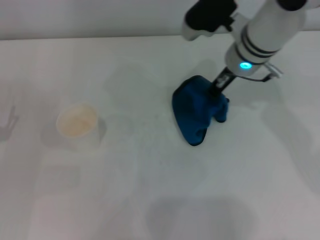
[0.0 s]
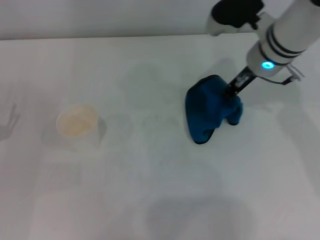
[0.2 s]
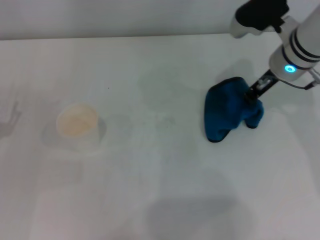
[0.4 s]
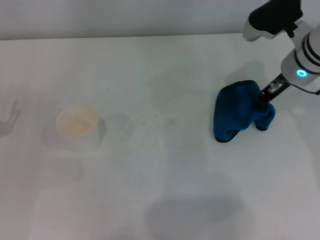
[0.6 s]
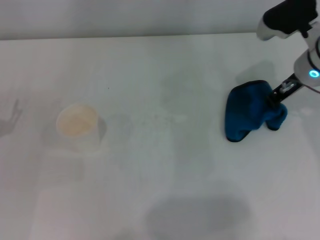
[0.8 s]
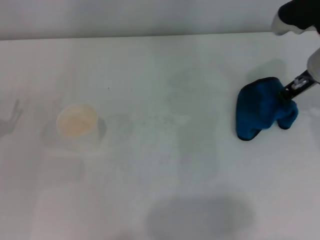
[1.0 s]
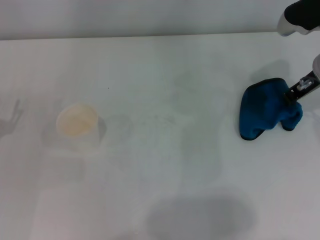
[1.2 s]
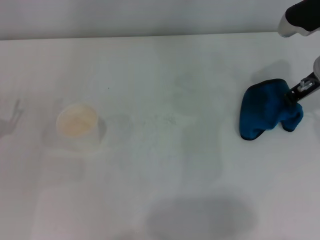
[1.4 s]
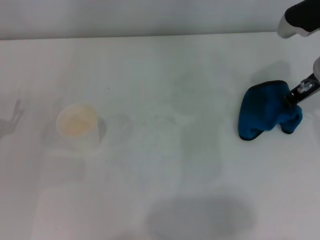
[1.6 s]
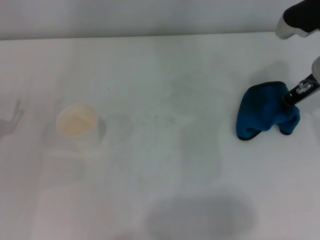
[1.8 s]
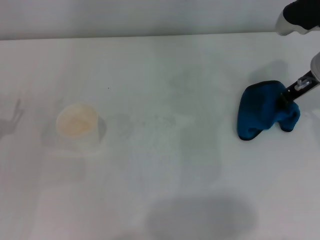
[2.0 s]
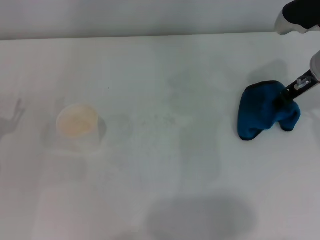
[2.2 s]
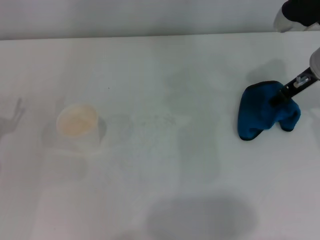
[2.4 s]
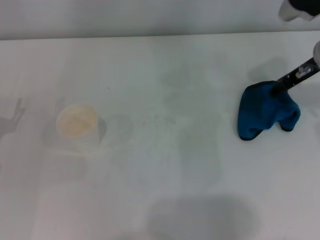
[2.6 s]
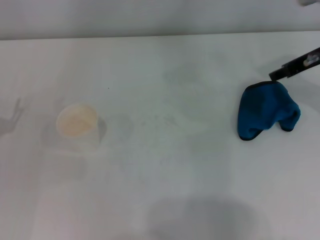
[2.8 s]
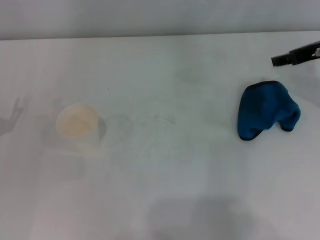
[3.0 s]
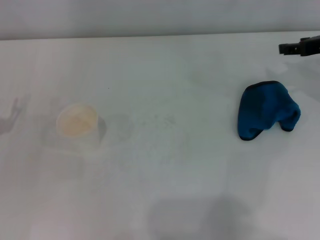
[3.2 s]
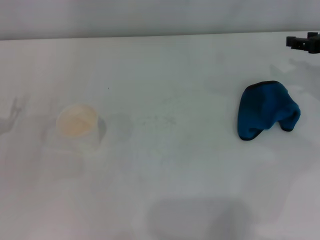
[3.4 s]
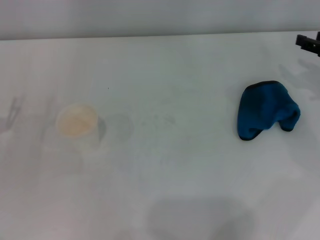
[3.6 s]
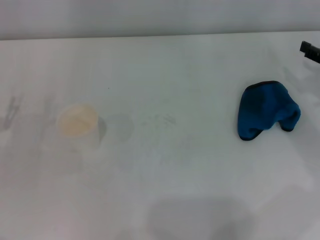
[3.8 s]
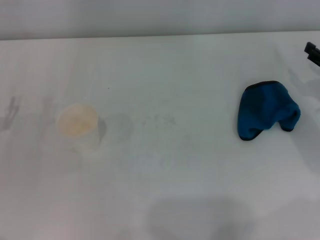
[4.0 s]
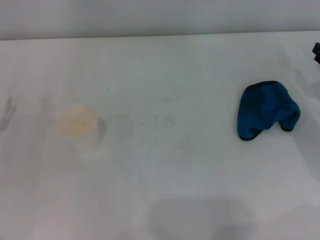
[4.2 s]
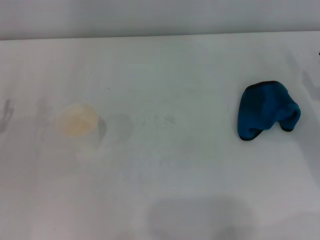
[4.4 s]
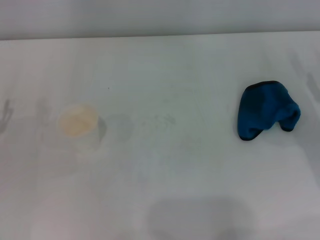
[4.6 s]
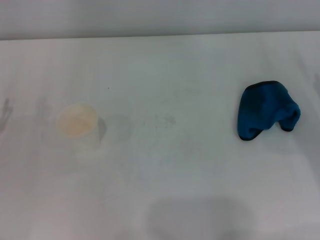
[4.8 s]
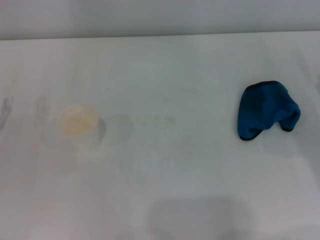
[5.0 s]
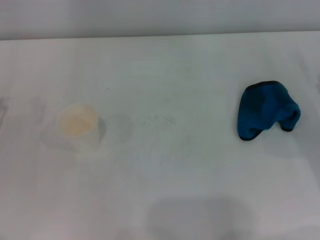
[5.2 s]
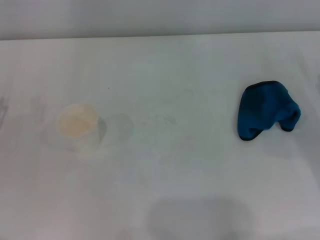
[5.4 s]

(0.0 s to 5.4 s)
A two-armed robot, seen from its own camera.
0.0 s - 1.4 s: The right gripper moves to the right, about 15 cm.
1.4 s - 2.8 s: The right gripper opens its fingers.
2.8 s - 4.0 s: The right gripper shifts roughly 15 cm downward, to the right and backward.

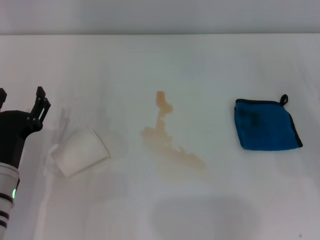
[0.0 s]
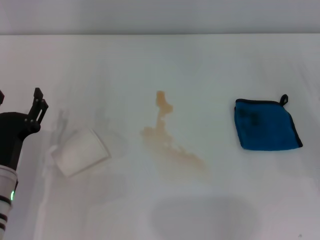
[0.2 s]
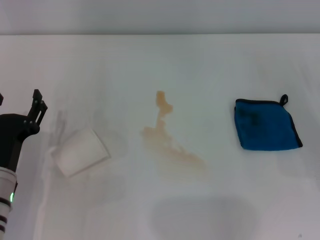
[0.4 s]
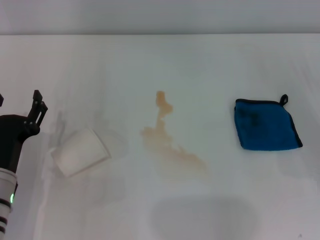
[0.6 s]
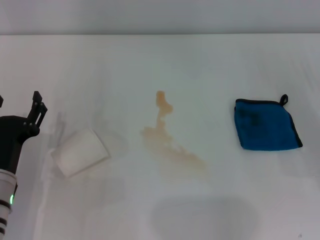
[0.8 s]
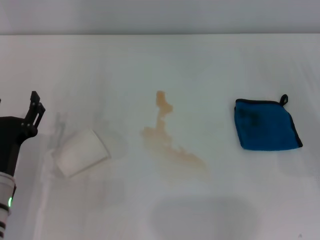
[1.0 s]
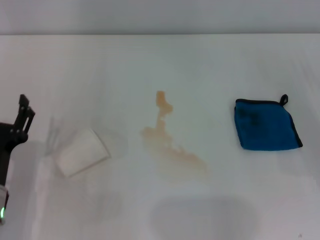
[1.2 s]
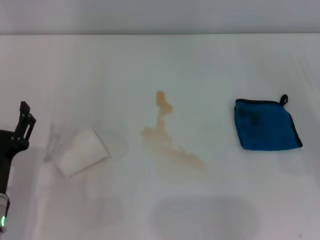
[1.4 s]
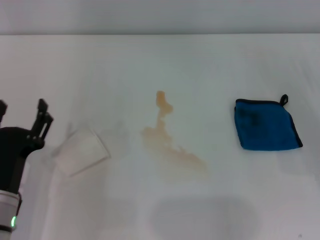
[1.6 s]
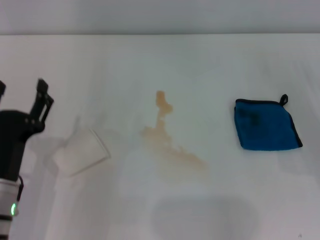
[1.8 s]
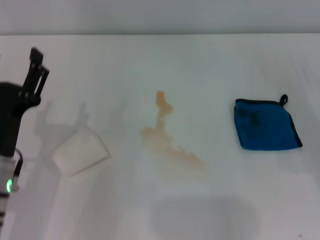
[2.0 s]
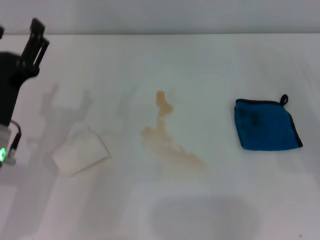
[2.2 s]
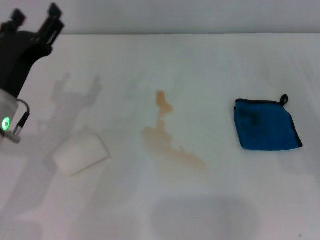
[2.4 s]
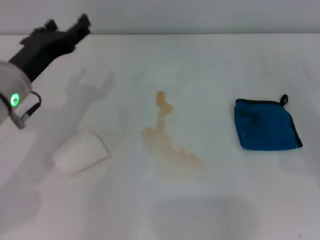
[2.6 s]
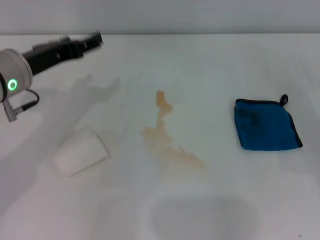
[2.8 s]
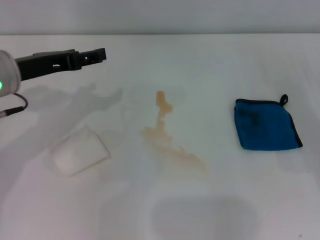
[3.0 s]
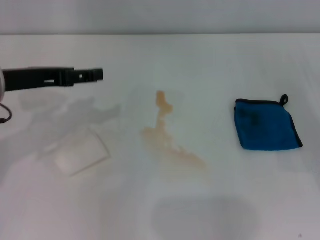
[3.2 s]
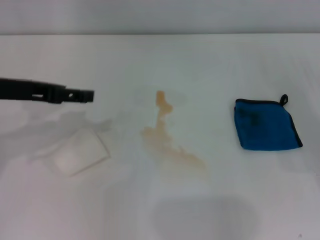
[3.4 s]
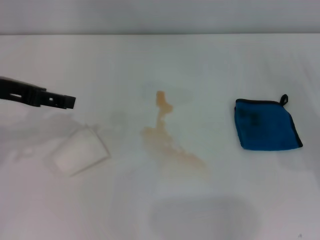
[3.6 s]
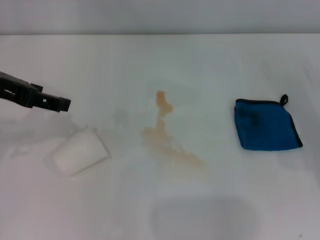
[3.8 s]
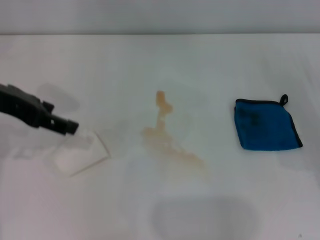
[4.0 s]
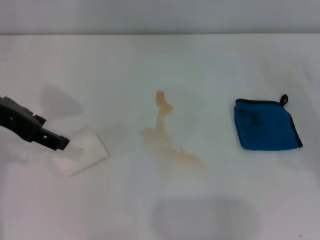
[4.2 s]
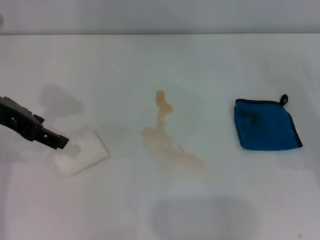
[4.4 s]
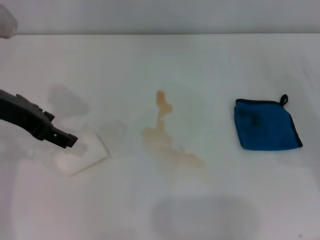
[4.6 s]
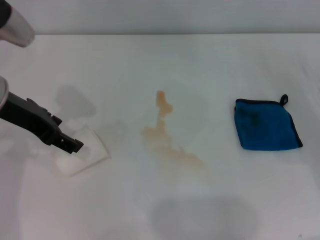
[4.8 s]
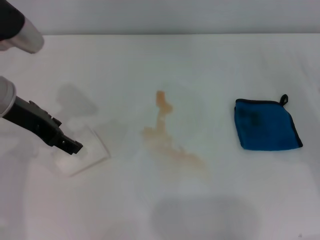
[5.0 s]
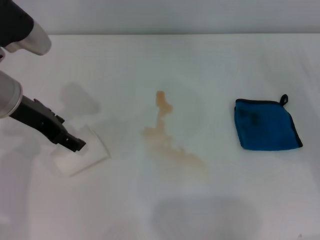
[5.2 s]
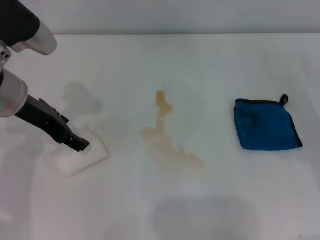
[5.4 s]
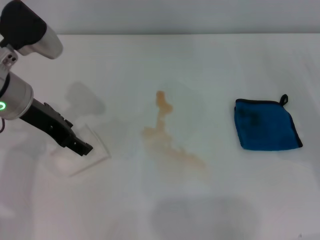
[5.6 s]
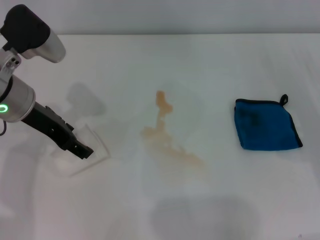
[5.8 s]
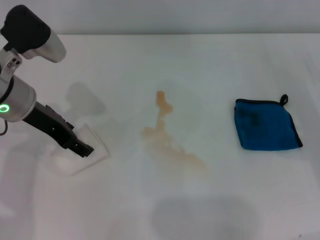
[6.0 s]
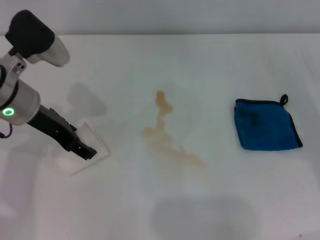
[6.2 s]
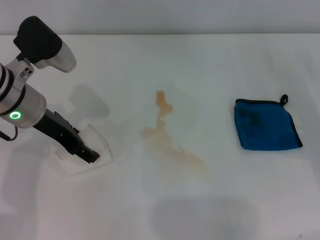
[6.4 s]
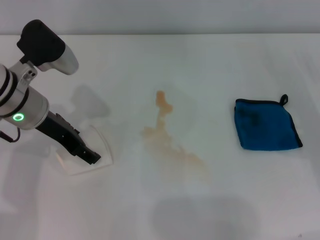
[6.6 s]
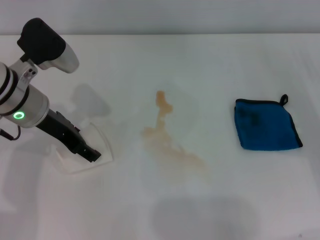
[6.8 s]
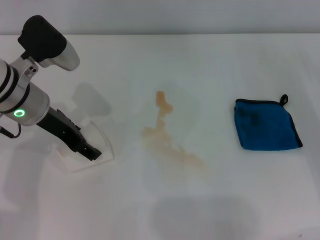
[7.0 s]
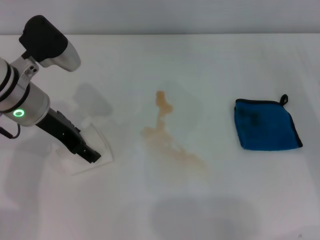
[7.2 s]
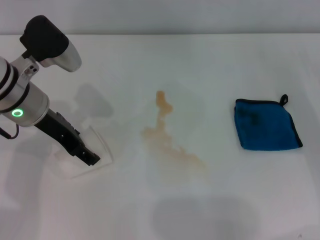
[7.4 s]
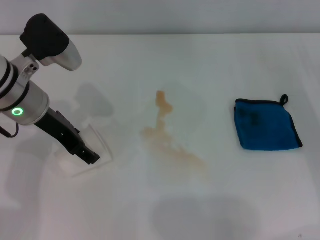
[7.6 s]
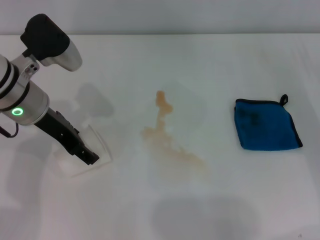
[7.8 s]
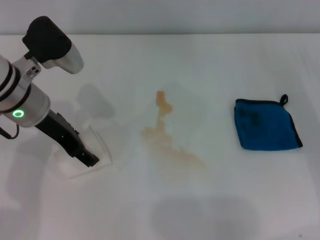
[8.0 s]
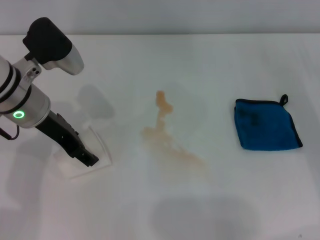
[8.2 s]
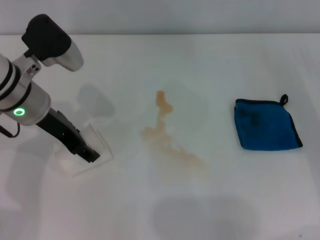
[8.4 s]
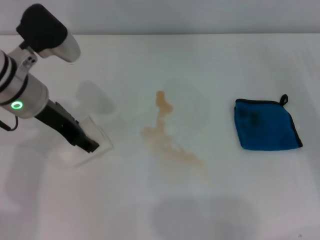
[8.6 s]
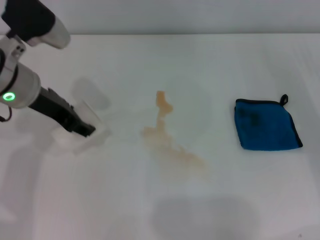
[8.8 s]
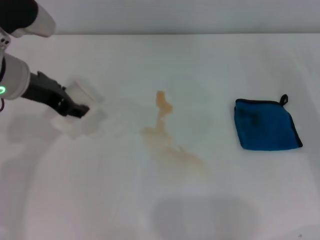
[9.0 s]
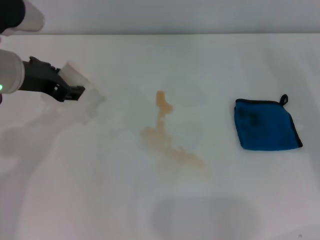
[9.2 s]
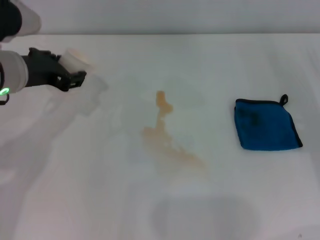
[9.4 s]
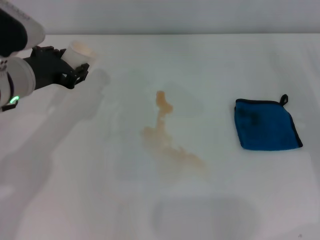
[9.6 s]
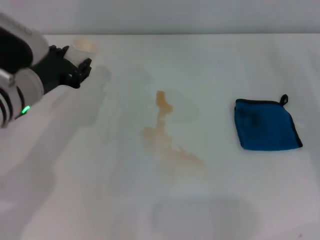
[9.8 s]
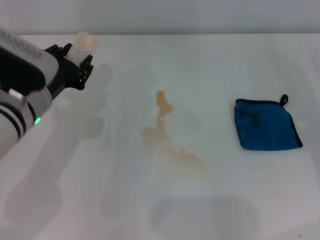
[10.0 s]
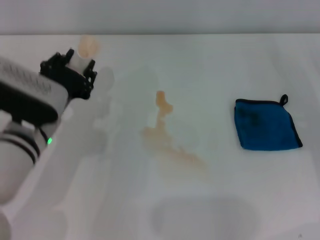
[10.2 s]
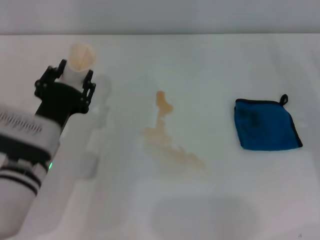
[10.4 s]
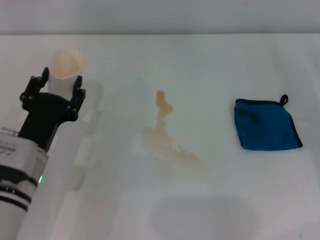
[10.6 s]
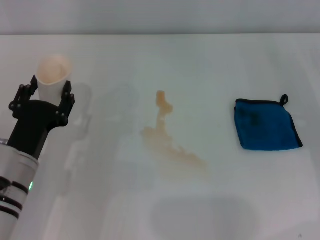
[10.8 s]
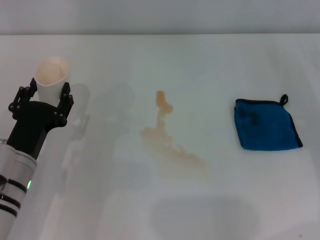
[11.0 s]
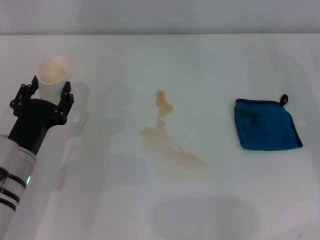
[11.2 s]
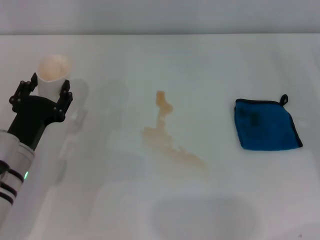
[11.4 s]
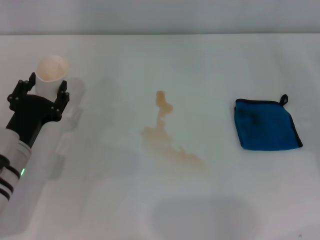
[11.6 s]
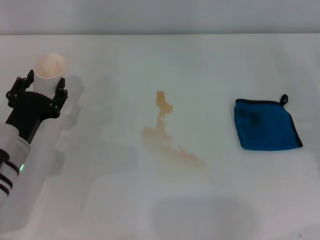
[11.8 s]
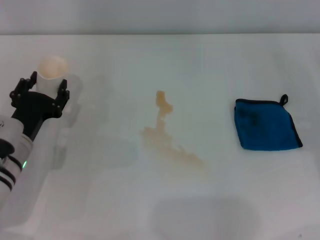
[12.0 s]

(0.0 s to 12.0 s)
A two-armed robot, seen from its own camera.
Step, 0.0 s - 8.0 s: Grasp the paper cup with the left gripper.
0.0 s - 1.6 s: The grippers stay close to where they were, moving slightly.
1.6 s - 3.0 s: The left gripper goes approximately 20 cm upward and forward.
4.4 s - 6.0 s: The left gripper moves downward, roughly 5 cm.
6.0 s - 7.6 s: The grippers make only small movements.
7.6 s - 9.0 s: The left gripper closes its fingers.
9.0 s - 10.4 s: The left gripper goes about 15 cm downward and backward, and closes its fingers.
10.4 s - 12.0 s: The left gripper moves to the left, some 5 cm.

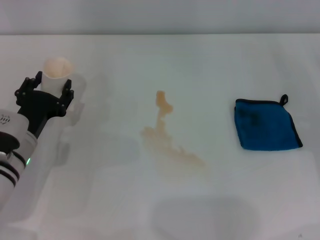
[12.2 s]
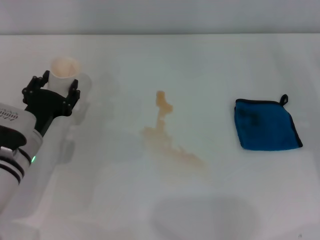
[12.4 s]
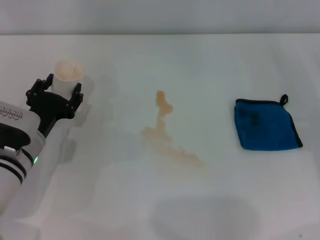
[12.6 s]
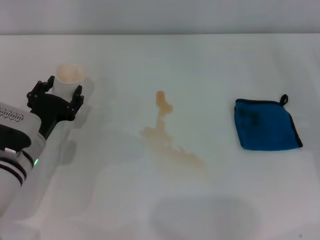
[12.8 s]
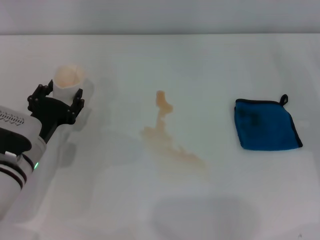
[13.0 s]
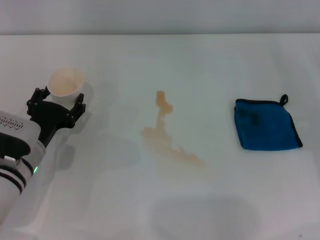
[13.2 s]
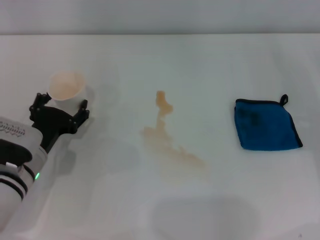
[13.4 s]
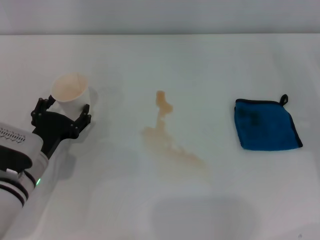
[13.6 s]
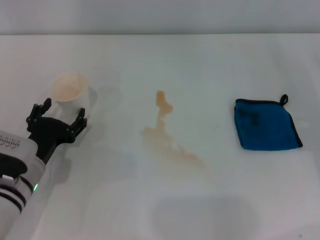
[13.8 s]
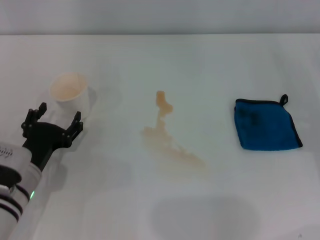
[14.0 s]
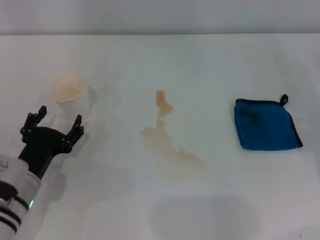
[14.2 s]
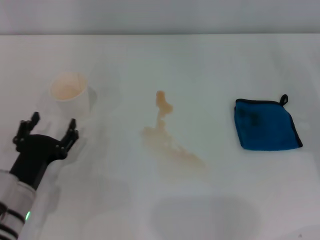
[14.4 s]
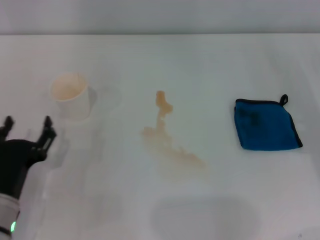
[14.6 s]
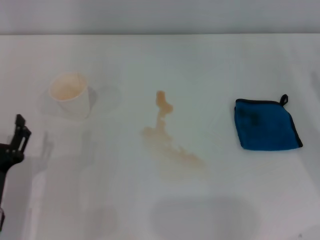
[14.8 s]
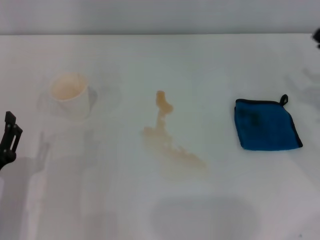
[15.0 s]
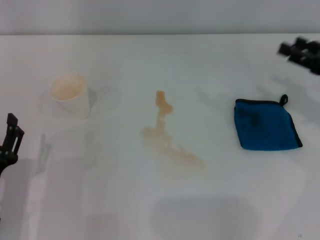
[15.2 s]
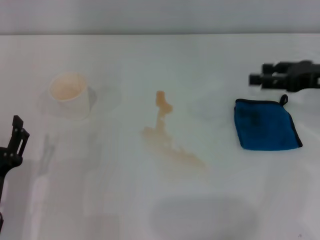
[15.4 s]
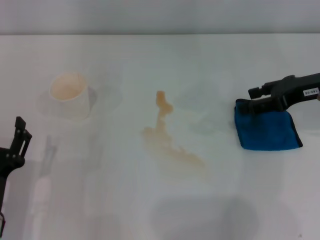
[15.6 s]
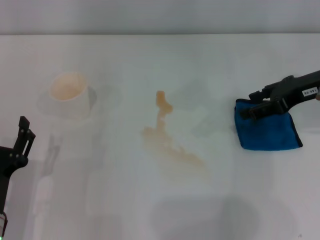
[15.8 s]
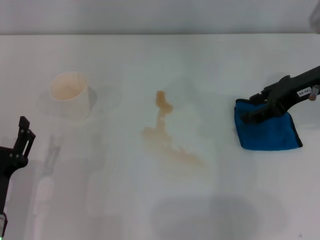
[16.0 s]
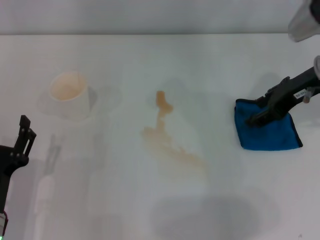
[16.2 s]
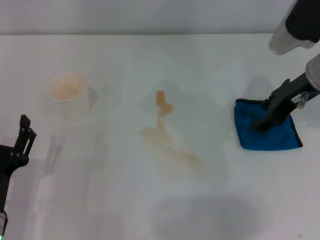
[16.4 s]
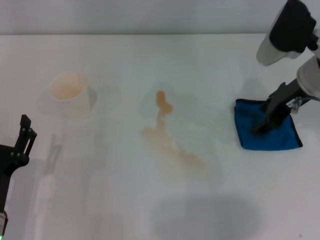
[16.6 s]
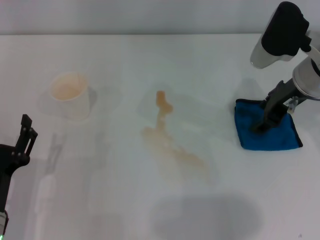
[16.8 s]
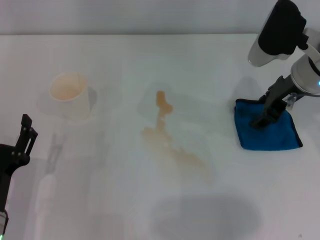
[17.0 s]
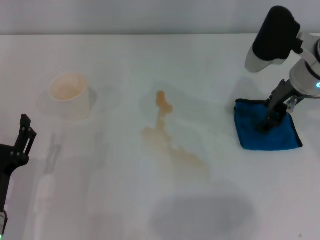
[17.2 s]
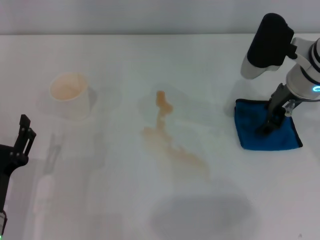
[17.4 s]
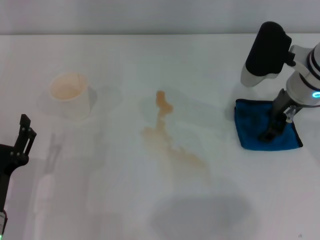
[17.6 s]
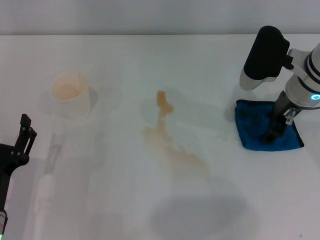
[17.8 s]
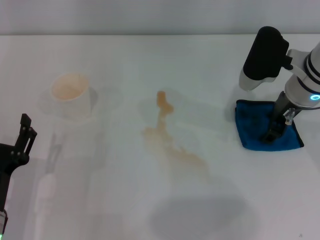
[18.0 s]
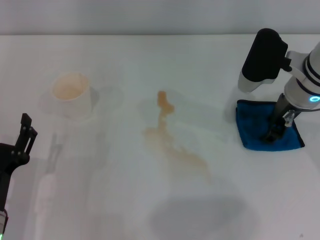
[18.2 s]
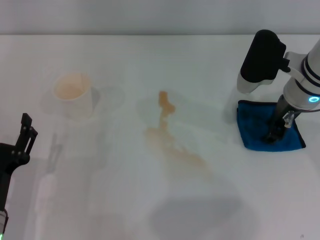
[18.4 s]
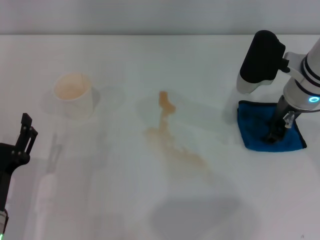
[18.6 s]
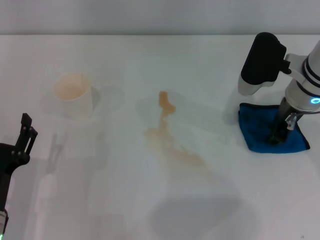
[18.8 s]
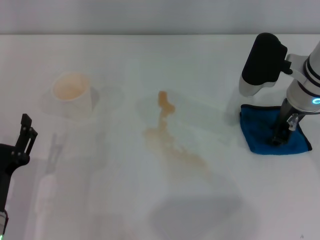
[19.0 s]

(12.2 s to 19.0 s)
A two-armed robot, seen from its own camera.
12.2 s - 13.6 s: The left gripper opens.
13.6 s - 15.0 s: The left gripper goes roughly 10 cm backward.
15.0 s - 16.2 s: The right gripper travels to the left, upward and forward by roughly 15 cm.
16.2 s - 17.6 s: The right gripper shifts by about 5 cm.
17.6 s - 19.0 s: The right gripper closes its fingers.
